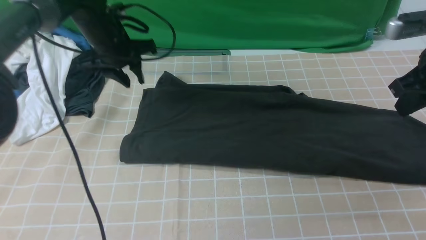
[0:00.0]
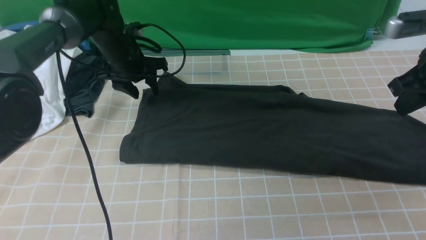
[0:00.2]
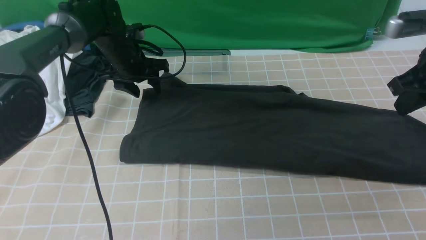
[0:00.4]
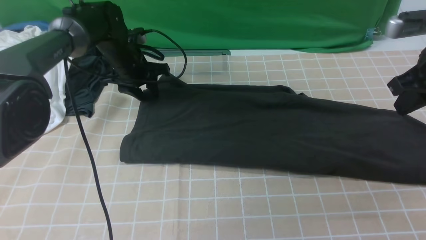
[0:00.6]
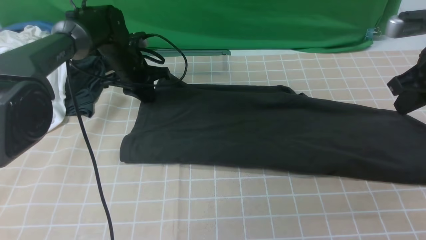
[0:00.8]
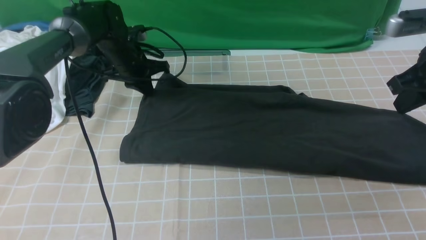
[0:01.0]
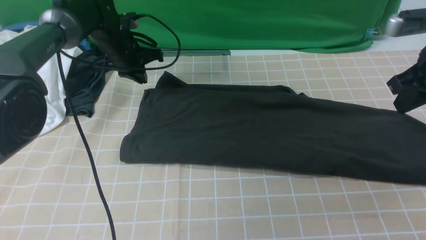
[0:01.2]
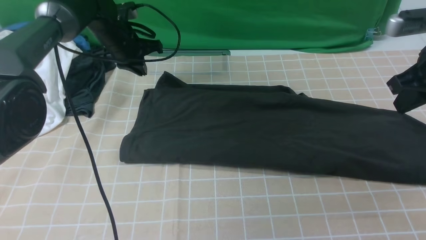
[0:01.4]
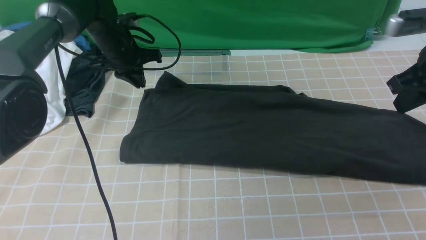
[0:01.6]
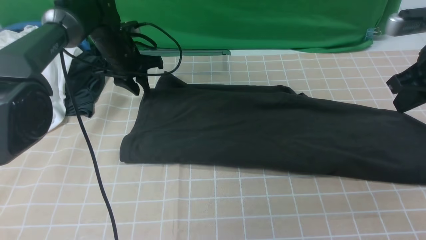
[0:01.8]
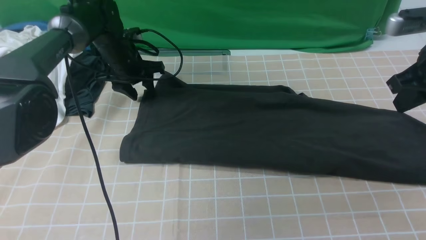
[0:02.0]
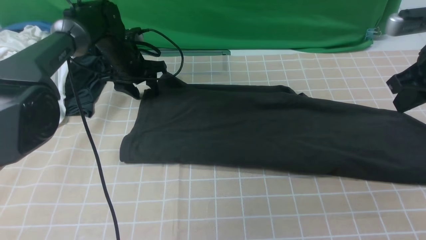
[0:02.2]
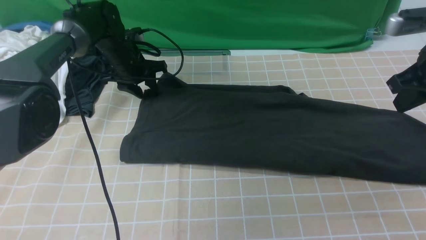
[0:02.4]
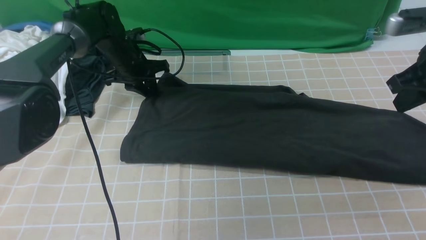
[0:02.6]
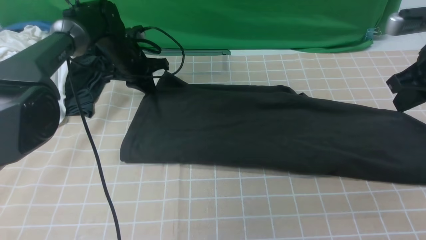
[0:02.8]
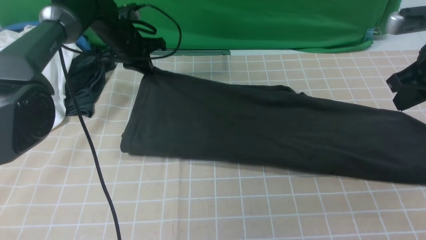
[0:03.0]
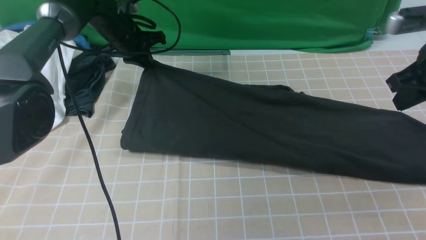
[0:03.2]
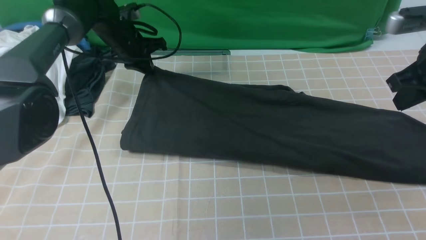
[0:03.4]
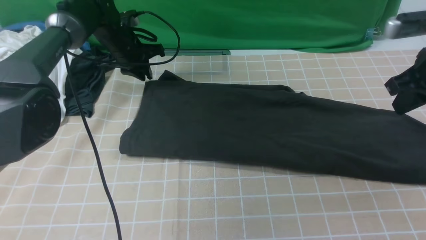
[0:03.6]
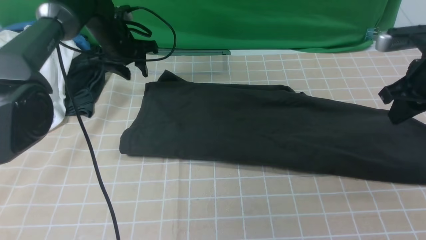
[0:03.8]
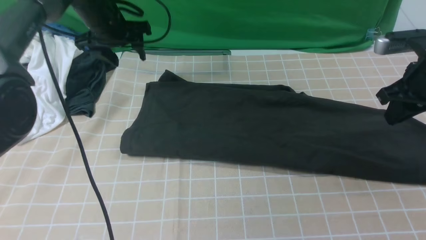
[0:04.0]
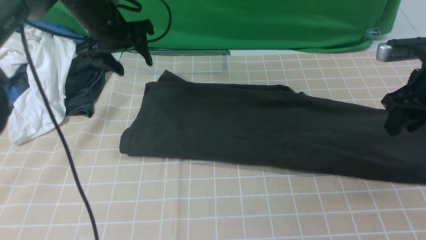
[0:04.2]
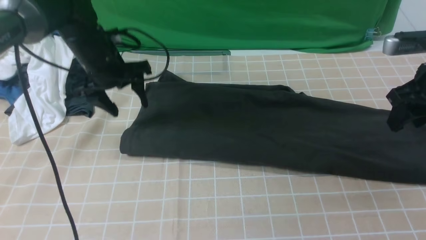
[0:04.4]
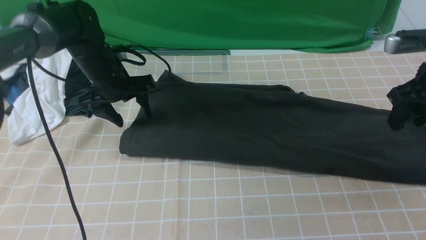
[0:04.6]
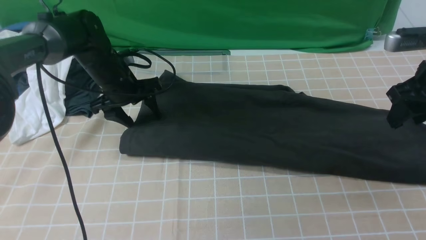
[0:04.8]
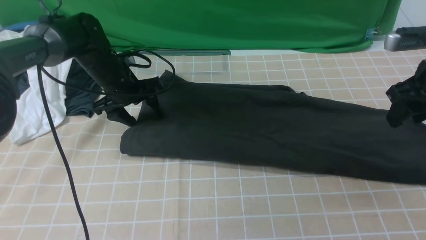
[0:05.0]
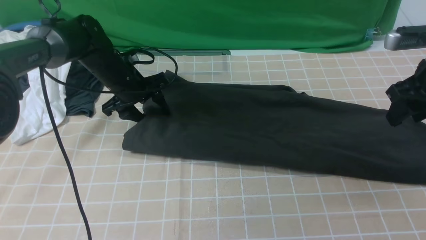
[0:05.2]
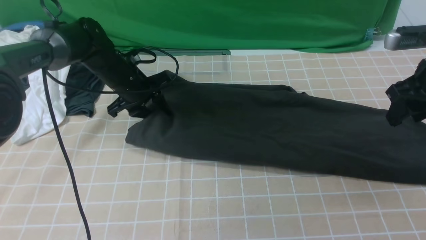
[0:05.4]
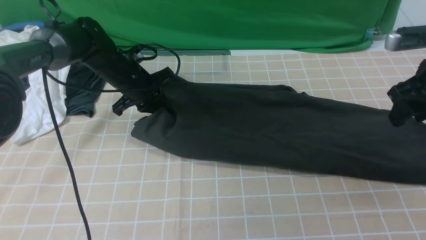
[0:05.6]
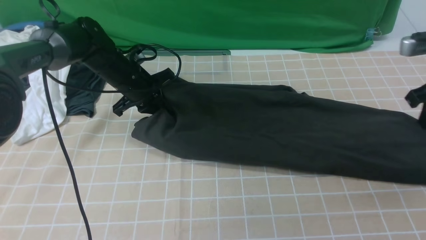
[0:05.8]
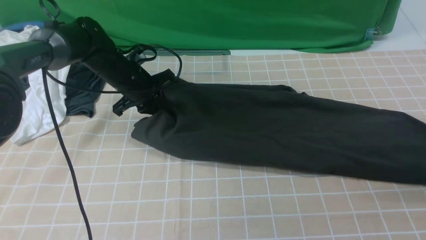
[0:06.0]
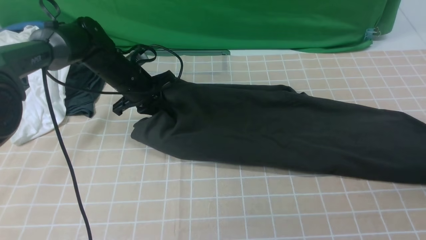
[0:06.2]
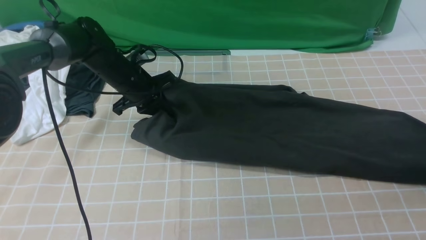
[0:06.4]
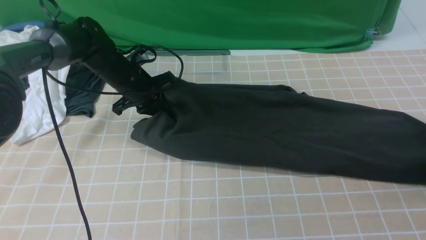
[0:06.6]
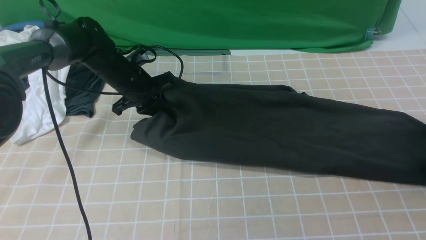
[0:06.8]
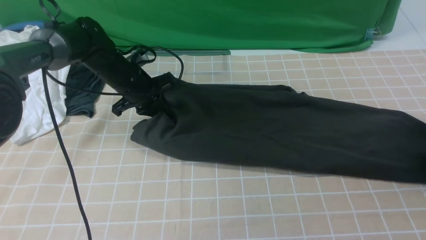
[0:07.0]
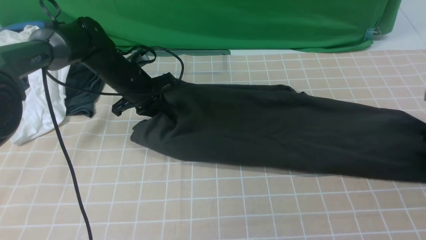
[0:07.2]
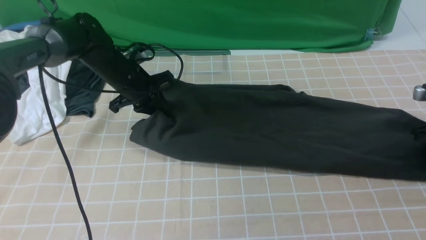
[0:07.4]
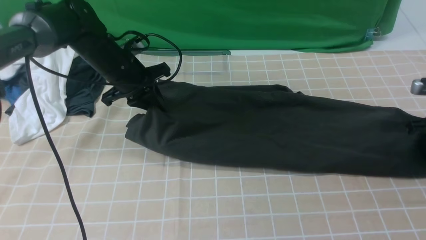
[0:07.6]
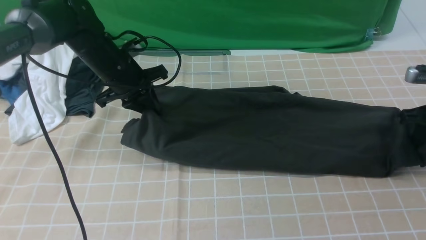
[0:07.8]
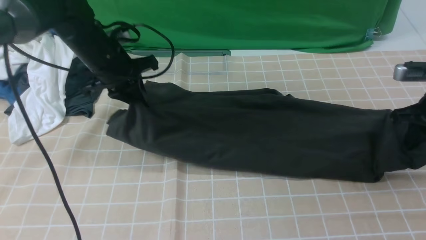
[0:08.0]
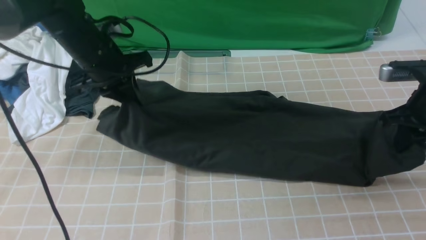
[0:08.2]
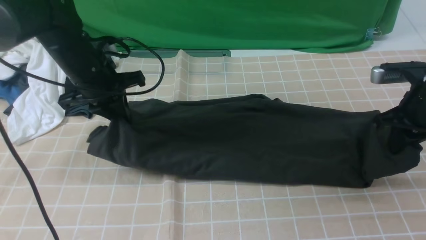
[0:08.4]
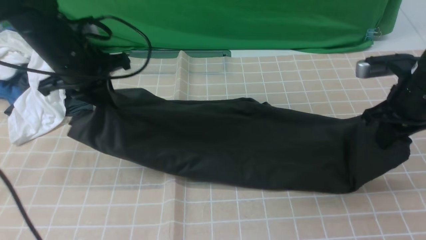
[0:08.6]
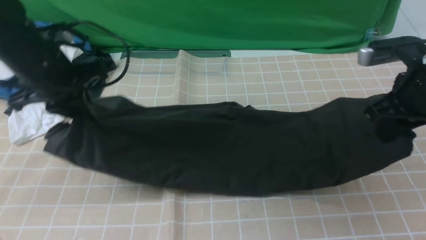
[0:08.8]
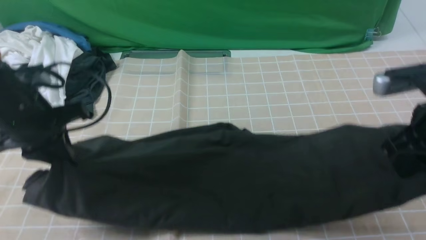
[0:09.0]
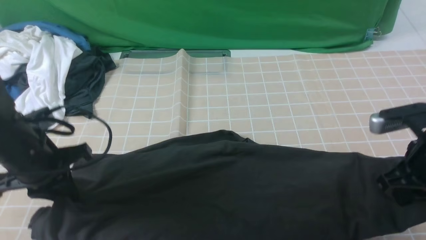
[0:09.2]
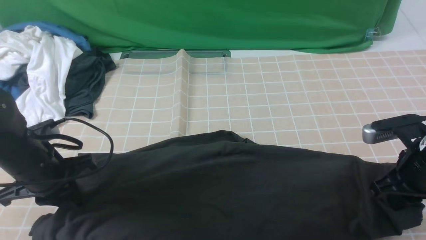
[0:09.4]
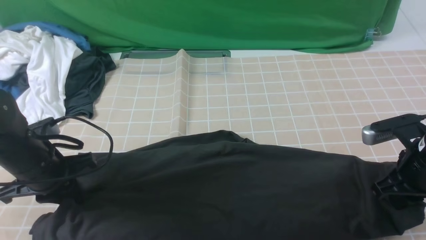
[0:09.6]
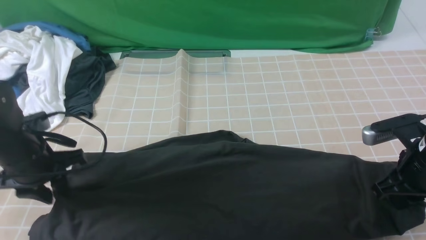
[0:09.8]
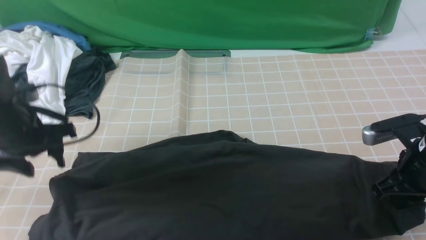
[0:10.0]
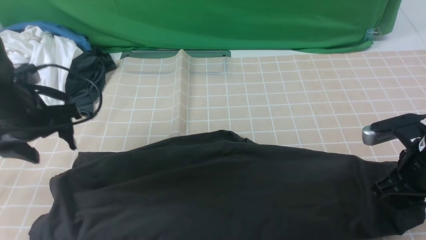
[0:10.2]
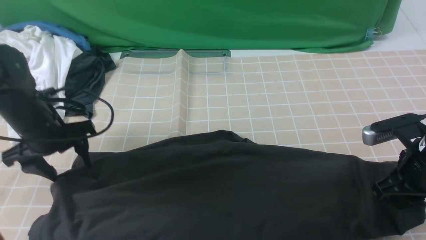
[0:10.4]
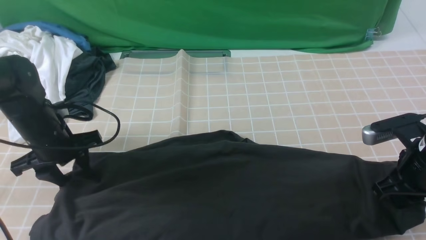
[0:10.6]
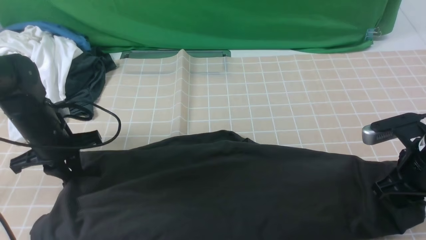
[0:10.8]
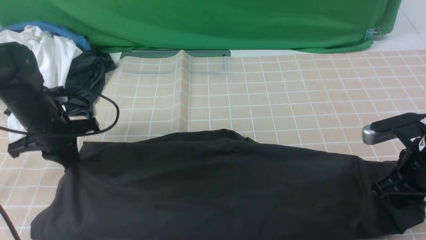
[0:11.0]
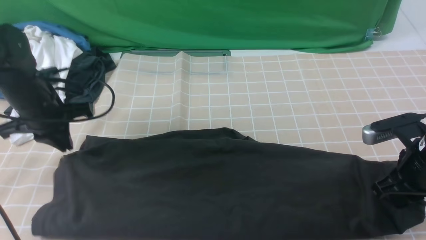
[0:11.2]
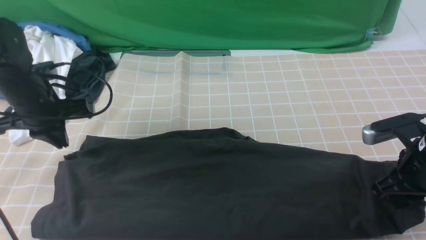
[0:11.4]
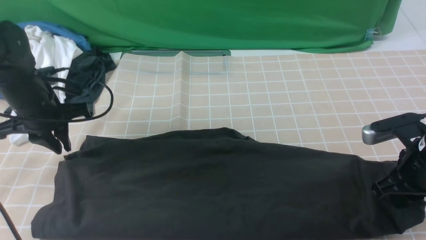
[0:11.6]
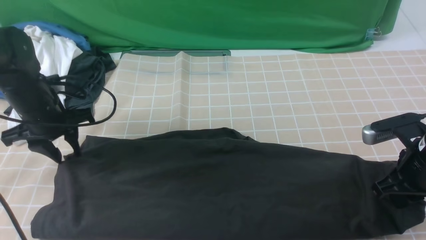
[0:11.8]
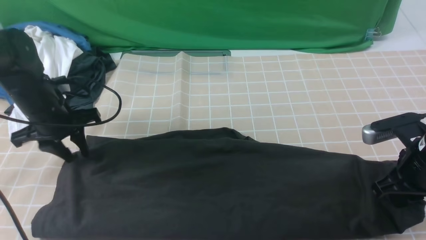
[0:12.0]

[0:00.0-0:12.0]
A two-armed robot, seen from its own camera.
0:01.6 to 0:03.0: The left gripper opens, then closes once more.
0:03.0 to 0:04.4: The left gripper is displaced backward by some 10 cm, and opens up; the right gripper opens up.
0:04.4 to 0:06.0: The left gripper shifts roughly 5 cm downward, and closes up, while the right gripper moves to the right, about 10 cm, and closes its fingers.
0:06.0 to 0:07.6: The right gripper goes approximately 10 cm downward, and opens and closes again.
0:07.6 to 0:09.0: The right gripper is displaced to the left, backward and upward by about 20 cm; the left gripper moves backward and to the left, roughly 15 cm.
0:09.0 to 0:10.4: The two grippers go approximately 5 cm downward. The left gripper opens its fingers.
0:10.4 to 0:12.0: The left gripper closes up.

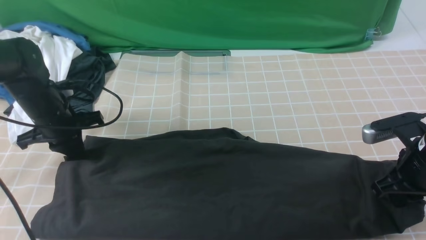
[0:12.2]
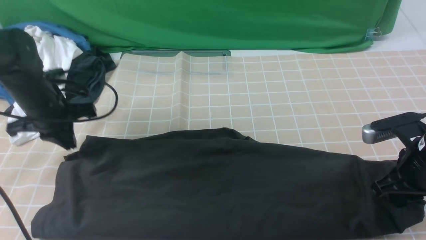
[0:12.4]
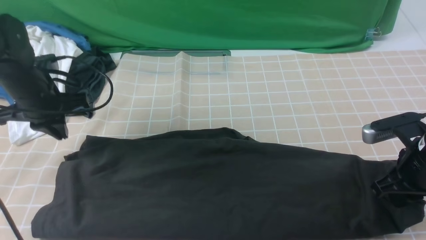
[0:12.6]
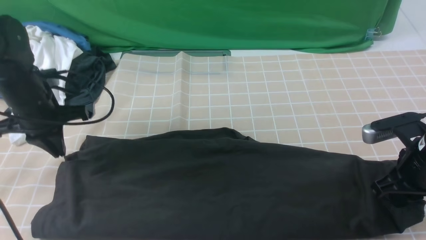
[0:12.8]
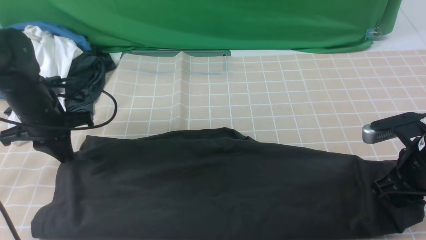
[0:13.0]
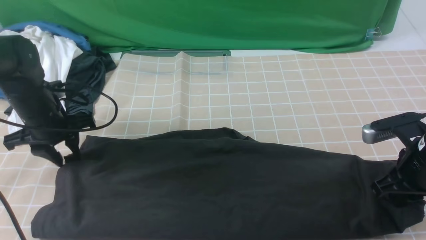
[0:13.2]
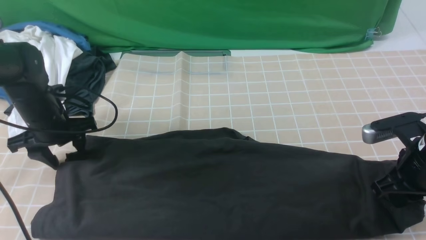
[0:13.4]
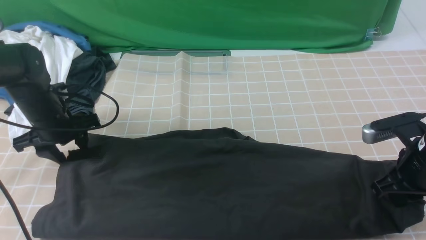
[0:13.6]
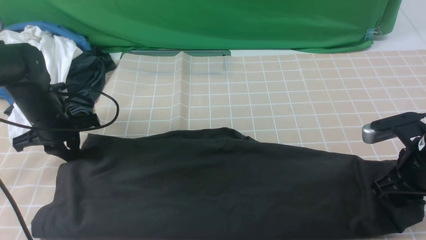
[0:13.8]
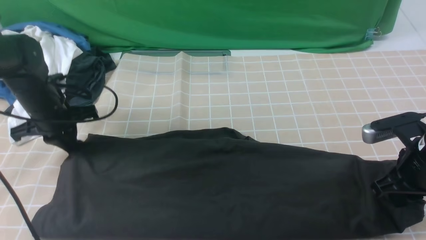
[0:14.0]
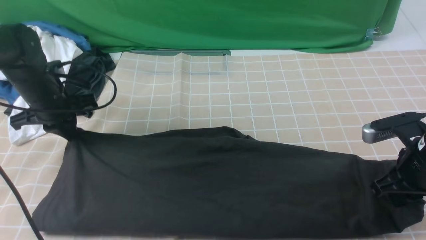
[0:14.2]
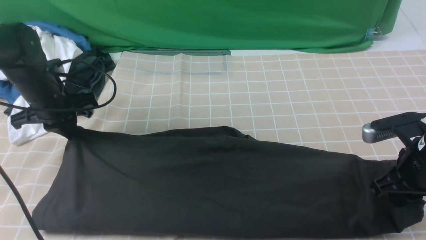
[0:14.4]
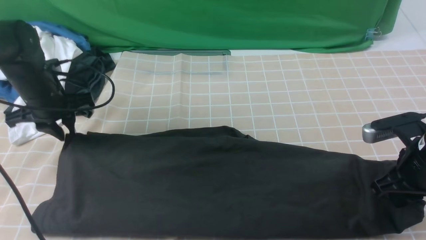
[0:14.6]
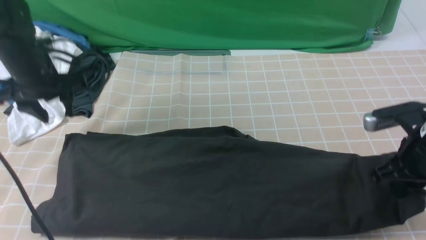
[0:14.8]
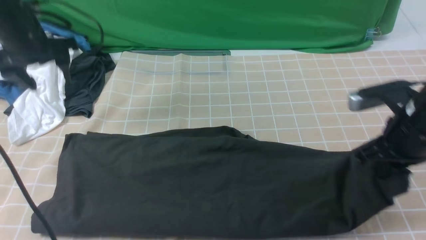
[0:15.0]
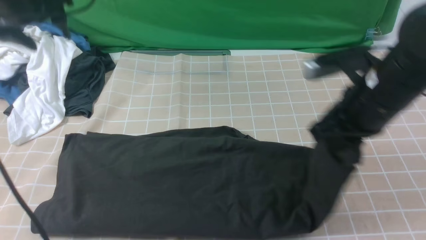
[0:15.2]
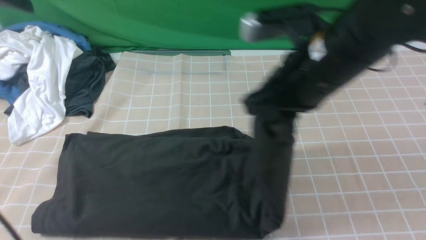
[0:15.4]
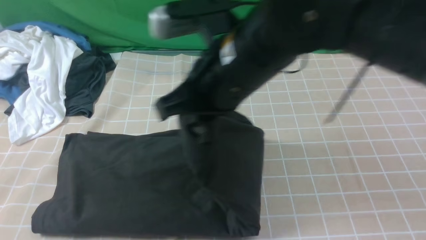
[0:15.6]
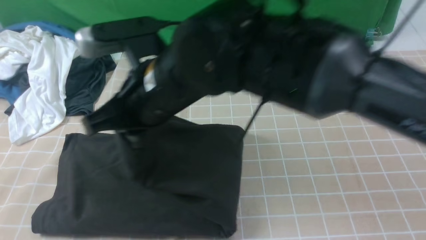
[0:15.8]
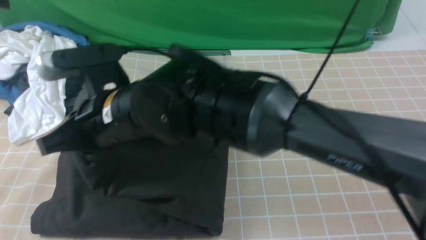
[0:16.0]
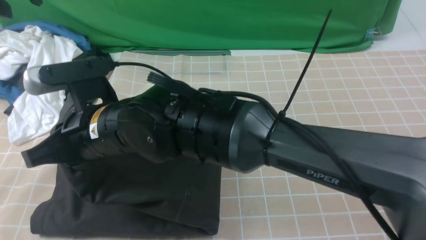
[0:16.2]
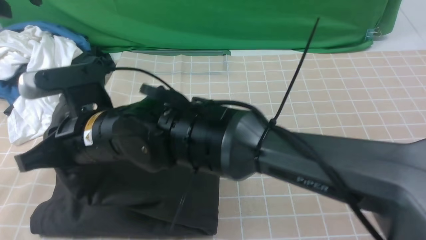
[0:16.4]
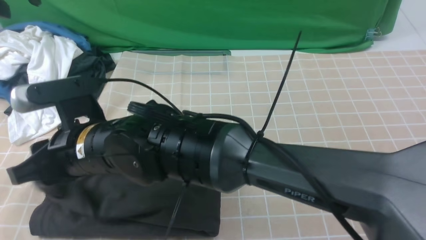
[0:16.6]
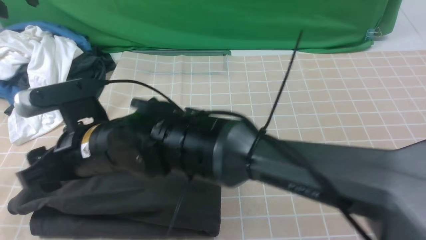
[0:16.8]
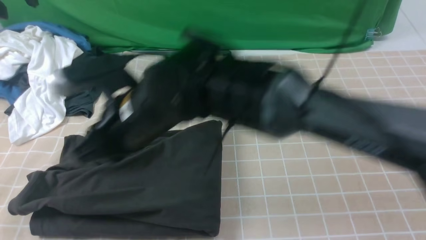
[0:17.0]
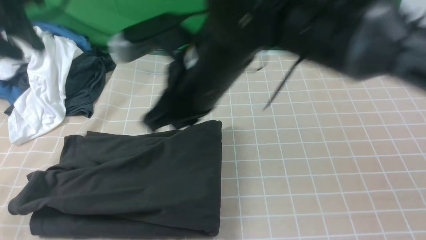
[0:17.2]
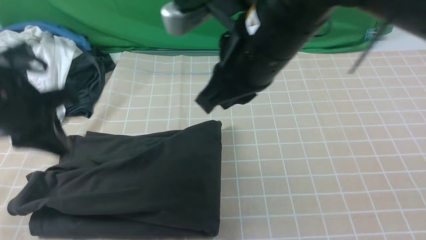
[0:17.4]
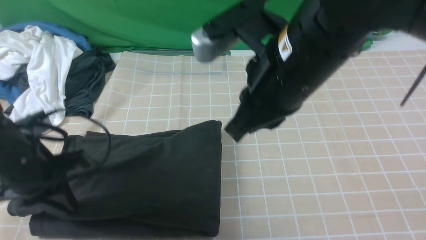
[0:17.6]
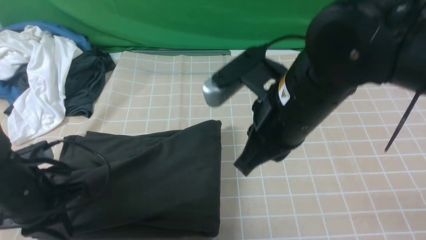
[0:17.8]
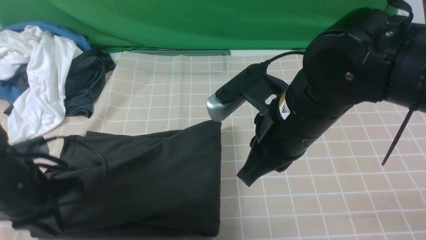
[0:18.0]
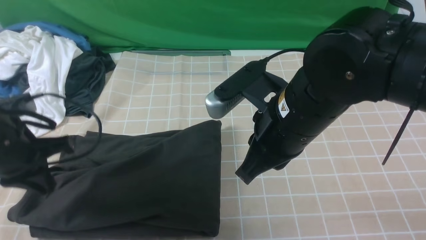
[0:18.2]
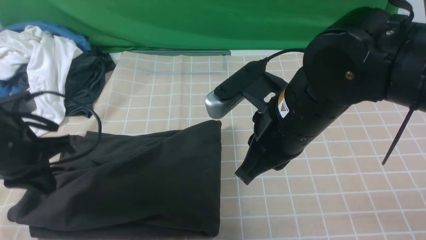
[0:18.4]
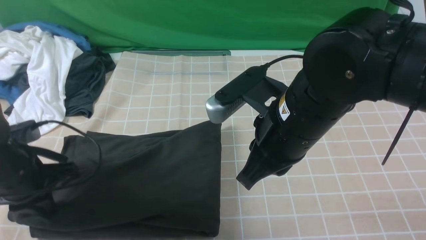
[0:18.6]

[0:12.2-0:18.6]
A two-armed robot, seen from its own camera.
Step, 0:12.6 to 0:17.0: use the right arm to drag the right edge of the fabric to the left and folds it over the left edge.
0:12.2 to 0:13.8: The left gripper opens, then closes again.
0:13.8 to 0:15.4: The left gripper goes roughly 25 cm upward, and opens its fingers, while the right gripper moves to the left and upward, approximately 25 cm.
0:15.4 to 0:17.0: The right gripper goes some 15 cm to the left. Meanwhile the left gripper heads backward, covering about 5 cm.
0:17.0 to 0:18.6: The right gripper heads to the right, covering approximately 15 cm, and closes its fingers; the left gripper travels downward by roughly 20 cm, and closes up.
